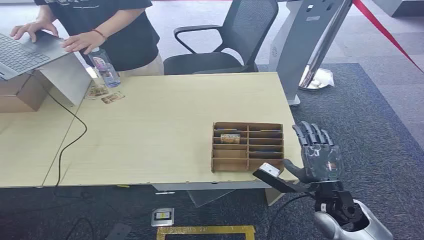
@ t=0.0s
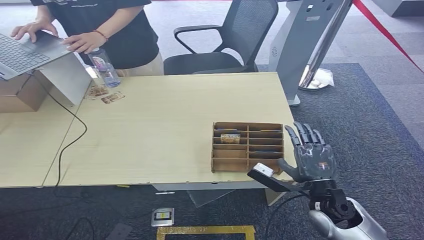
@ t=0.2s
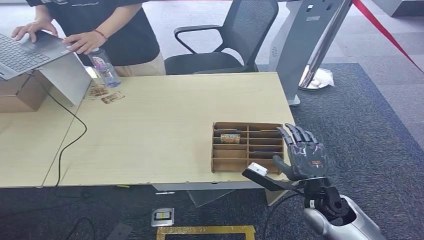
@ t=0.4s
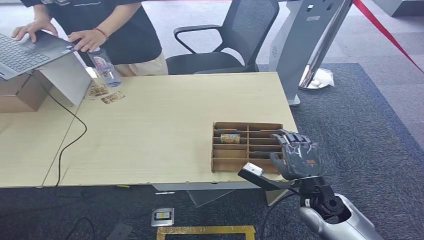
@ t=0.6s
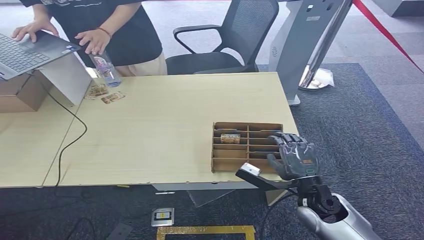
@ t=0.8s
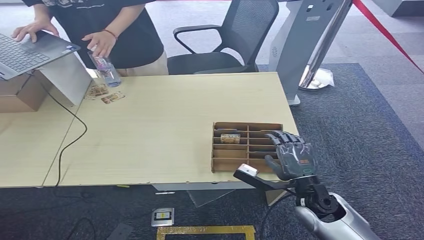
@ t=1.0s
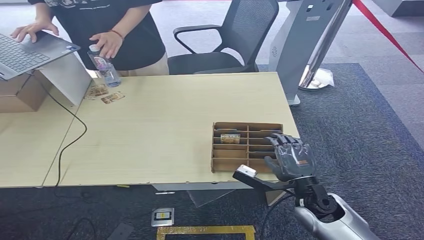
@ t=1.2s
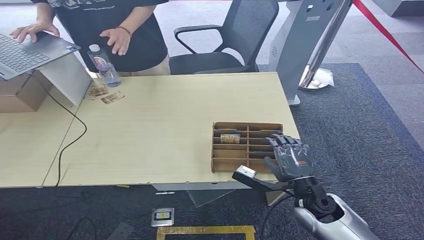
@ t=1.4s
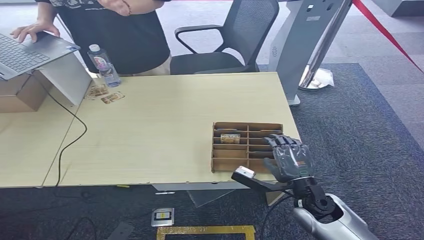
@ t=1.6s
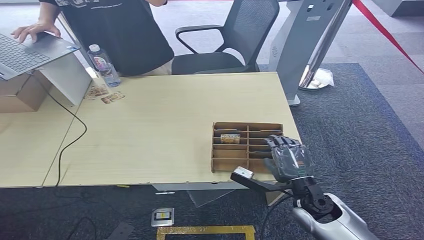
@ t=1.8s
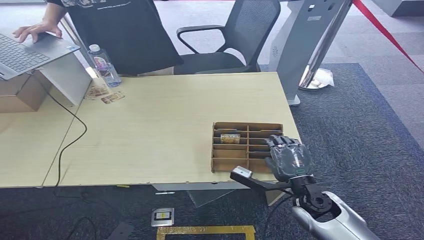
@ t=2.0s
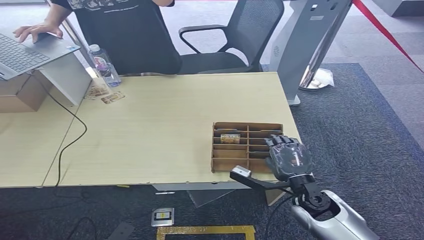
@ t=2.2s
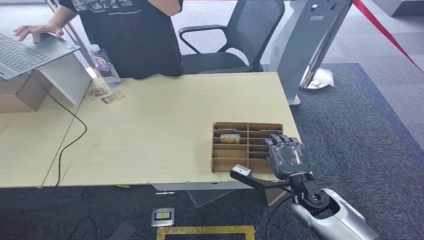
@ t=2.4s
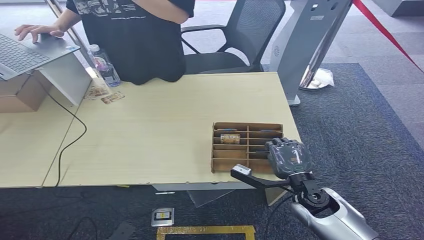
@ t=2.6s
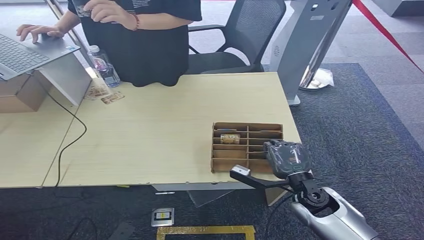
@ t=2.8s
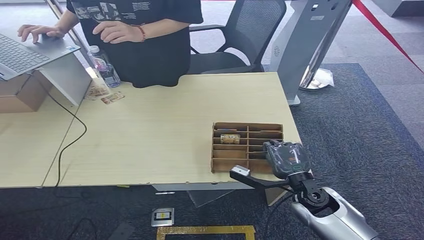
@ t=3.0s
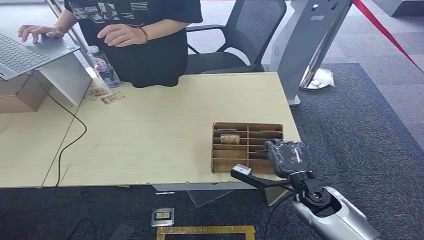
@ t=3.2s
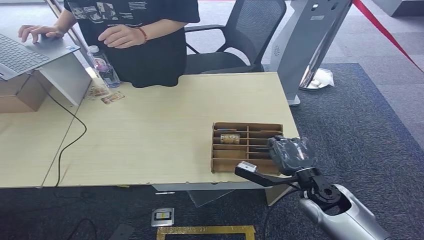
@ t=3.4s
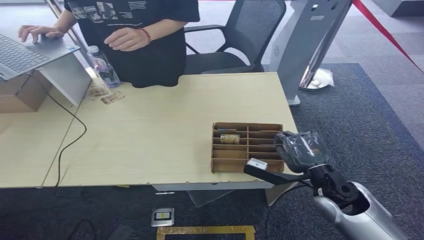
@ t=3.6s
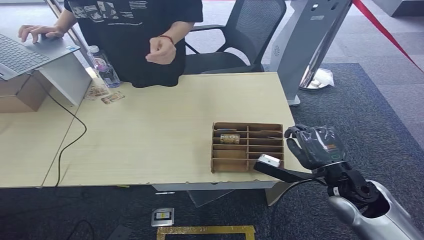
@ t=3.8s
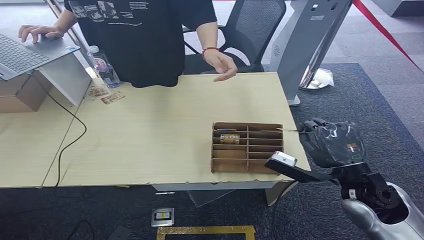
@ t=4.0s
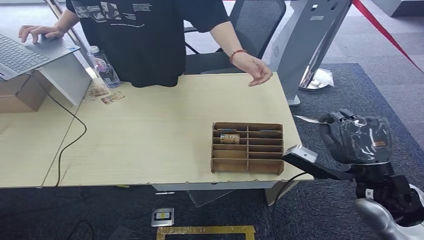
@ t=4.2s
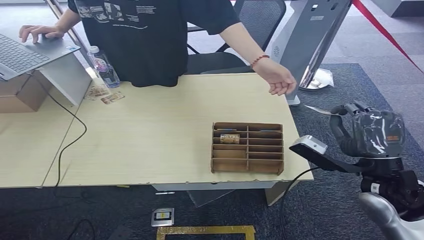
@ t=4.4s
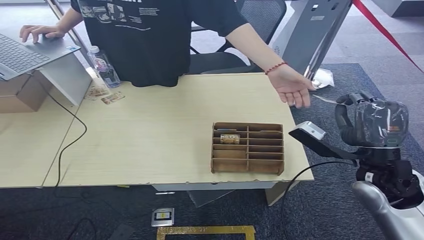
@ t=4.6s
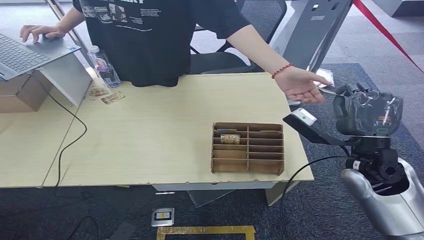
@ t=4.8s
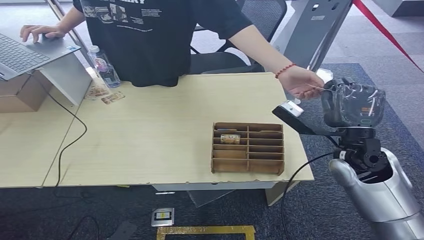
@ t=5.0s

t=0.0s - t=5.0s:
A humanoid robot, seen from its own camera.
Step, t=0.0s - t=3.6s: Pick up the room card from the card holder.
Step, t=4.0s - t=5.0s: Hand the room card to the target.
t=1.6s - t=3.4s: The hands stay close to where they were, moving slightly.
t=3.4s - t=5.0s: The right hand is displaced upward by about 15 cm.
